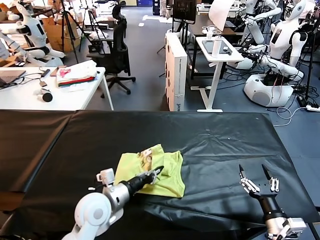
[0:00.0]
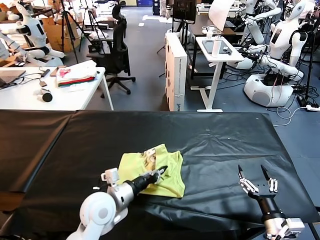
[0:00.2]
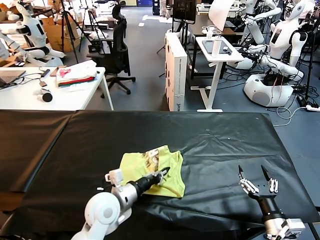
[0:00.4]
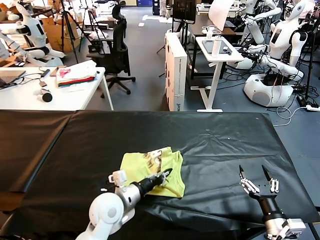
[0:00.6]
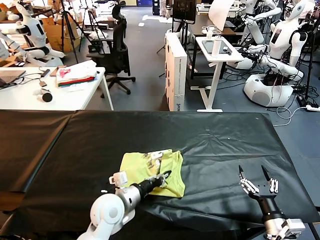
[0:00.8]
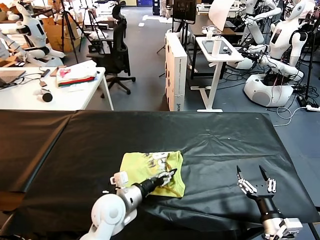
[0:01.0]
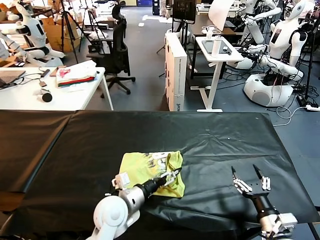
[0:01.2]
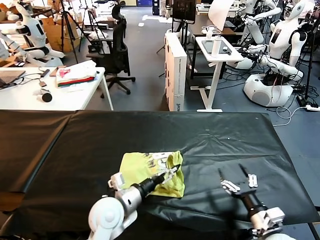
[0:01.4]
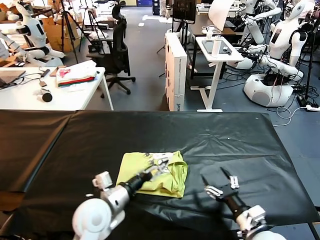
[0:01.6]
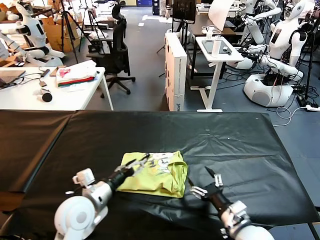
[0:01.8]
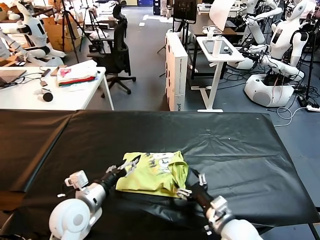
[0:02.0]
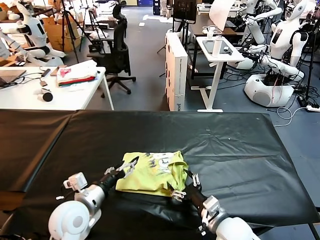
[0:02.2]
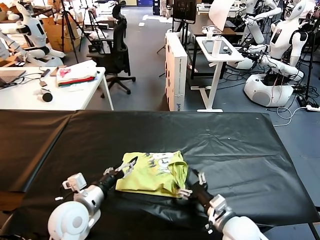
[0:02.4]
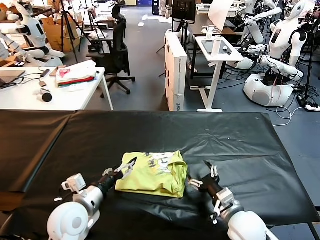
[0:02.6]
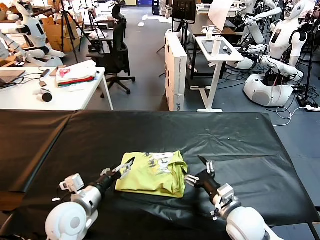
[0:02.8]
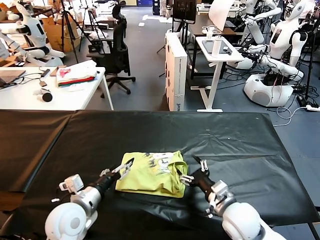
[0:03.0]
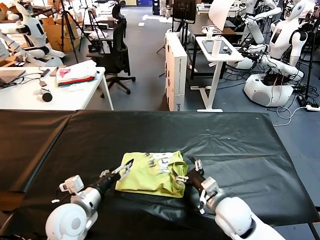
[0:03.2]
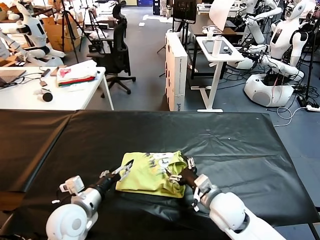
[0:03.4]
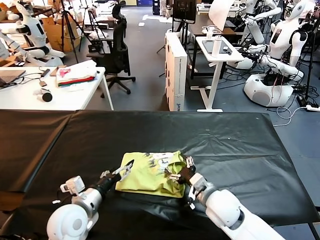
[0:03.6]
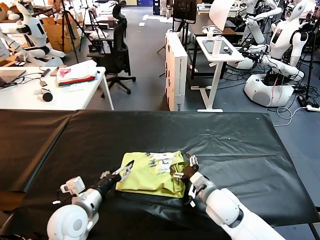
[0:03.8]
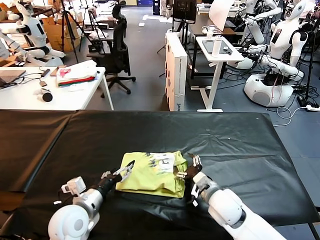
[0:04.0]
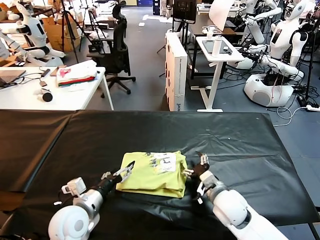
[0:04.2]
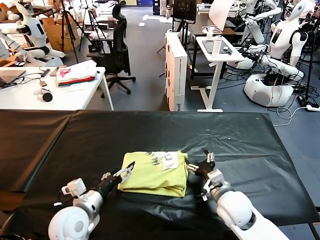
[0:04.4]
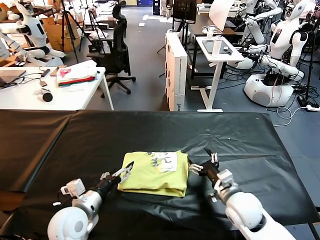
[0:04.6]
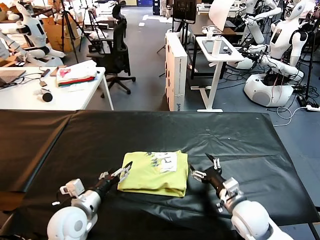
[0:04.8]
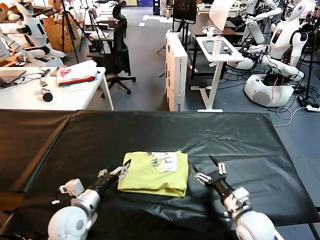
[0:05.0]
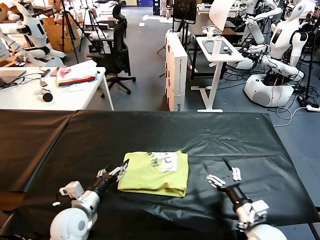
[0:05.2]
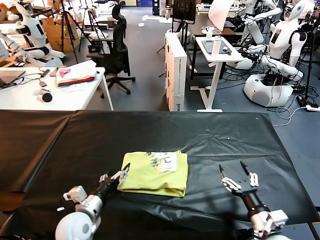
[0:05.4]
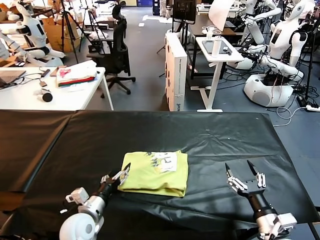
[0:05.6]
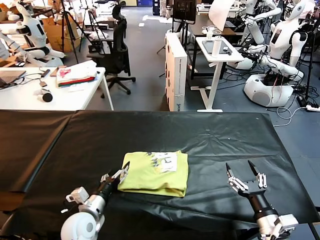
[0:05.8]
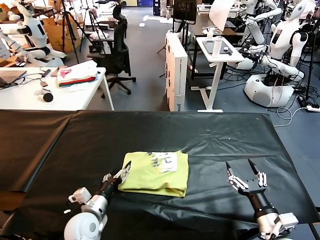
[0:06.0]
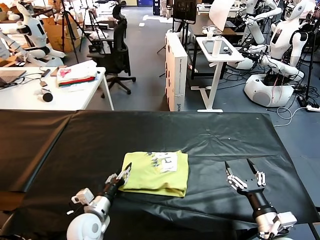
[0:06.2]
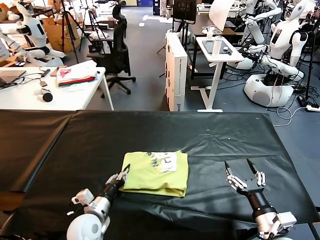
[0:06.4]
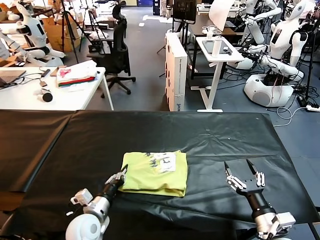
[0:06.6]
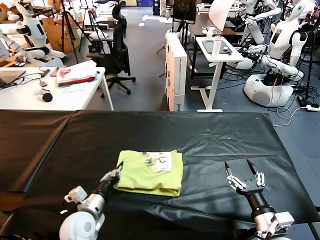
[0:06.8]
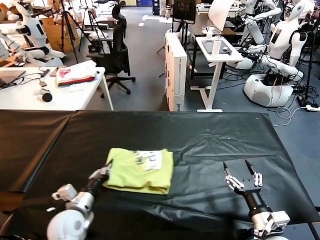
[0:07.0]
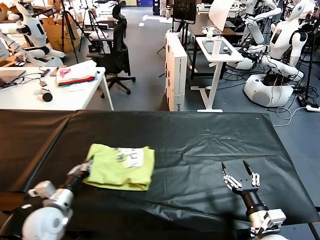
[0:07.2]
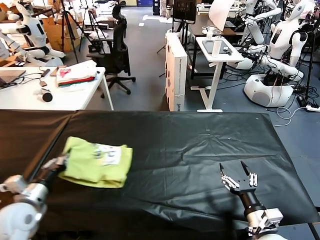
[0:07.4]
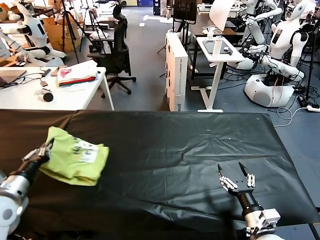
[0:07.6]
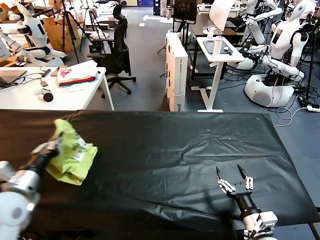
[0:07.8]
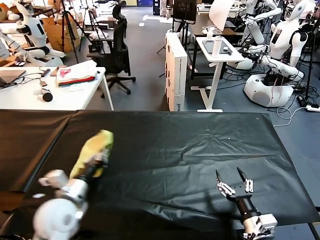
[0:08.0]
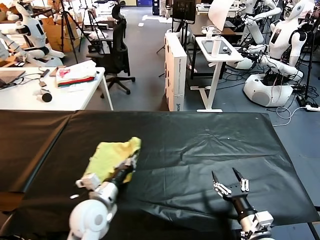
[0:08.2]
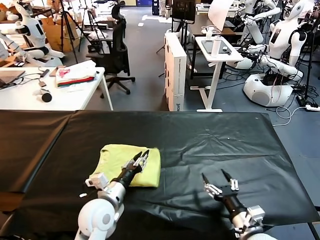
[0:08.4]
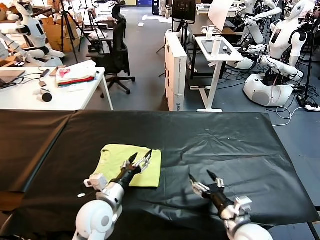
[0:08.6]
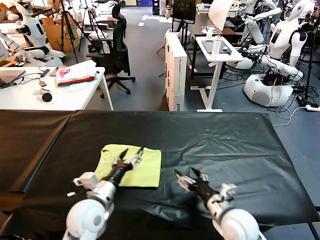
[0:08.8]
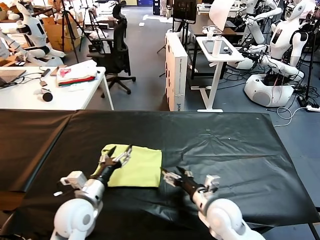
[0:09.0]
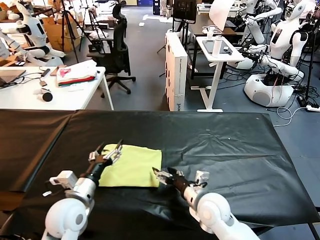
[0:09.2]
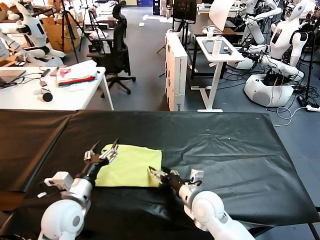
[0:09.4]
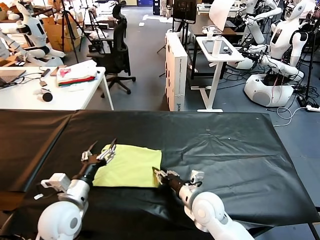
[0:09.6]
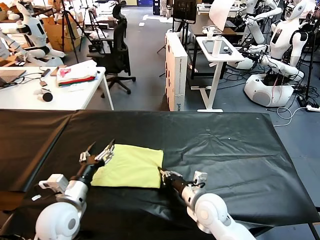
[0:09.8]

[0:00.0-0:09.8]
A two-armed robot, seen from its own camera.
Task of the whole recording: fold and organize the clothes.
Step, 0:01.6 to 0:08.4: Flip the folded clothes over with left gripper.
0:00.0 to 0:01.4: The left gripper opens up.
0:01.4 to 0:02.8: The right gripper moves to the left and forward, about 10 cm; the left gripper shifts approximately 10 cm to the left.
0:02.8 to 0:04.2: The right gripper heads forward, covering approximately 5 cm.
0:04.2 to 0:05.6: The right gripper goes approximately 15 cm backward and to the right. Meanwhile the left gripper heads downward, covering some 10 cm.
0:05.6 to 0:07.0: The left gripper closes its fingers.
0:07.0 to 0:08.4: The left gripper is displaced to the right by roughly 10 cm.
0:08.4 to 0:09.8: The right gripper travels to the left and forward by roughly 15 cm, and closes up. The left gripper goes approximately 10 cm to the left, and opens its fingers.

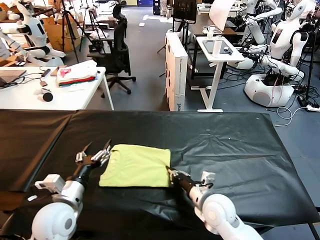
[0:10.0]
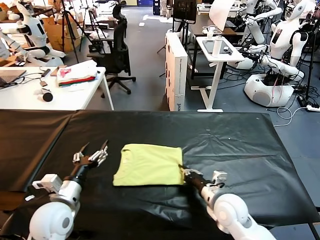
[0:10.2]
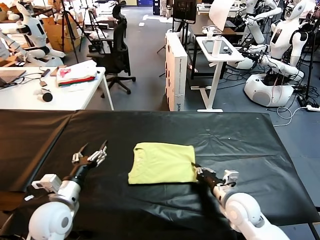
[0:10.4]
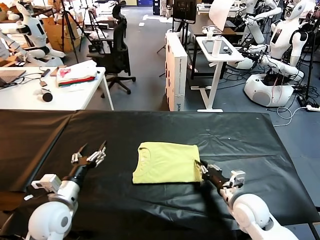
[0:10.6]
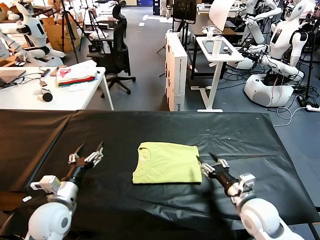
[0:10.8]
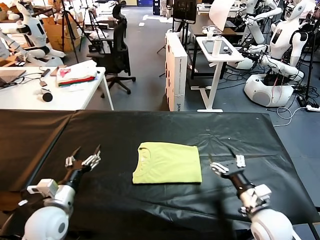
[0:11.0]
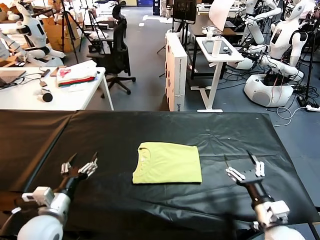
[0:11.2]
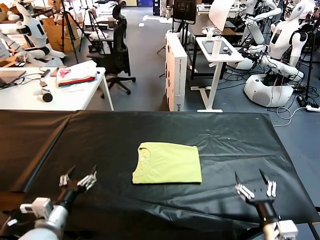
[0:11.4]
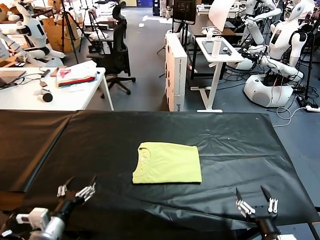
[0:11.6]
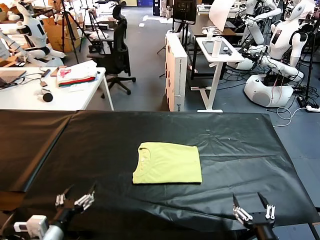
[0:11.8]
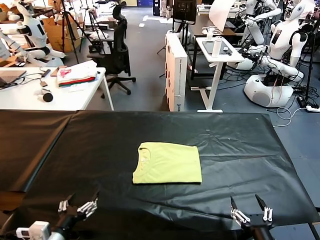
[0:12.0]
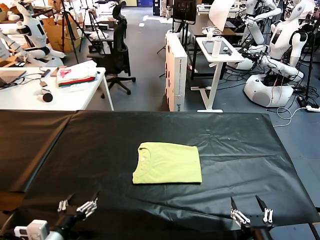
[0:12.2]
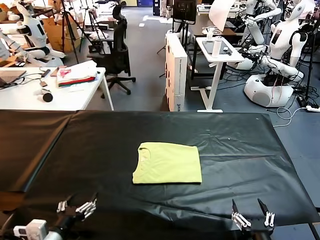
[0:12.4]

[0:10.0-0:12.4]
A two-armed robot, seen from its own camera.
Task of the whole recording: fold and organize the clothes.
0:10.0 to 0:11.2: The right gripper goes some 15 cm to the right and backward, and opens up.
0:11.2 to 0:12.4: The grippers both shift backward by approximately 10 cm.

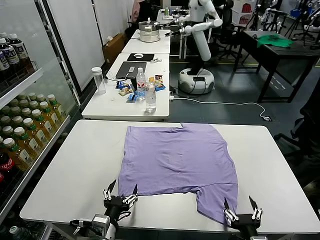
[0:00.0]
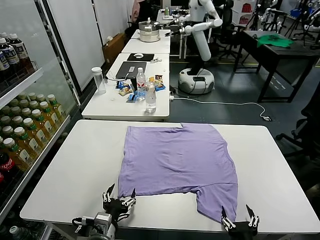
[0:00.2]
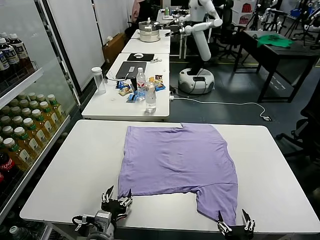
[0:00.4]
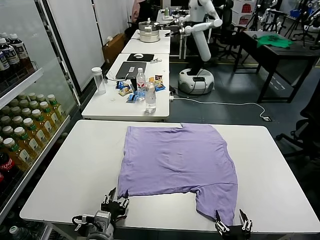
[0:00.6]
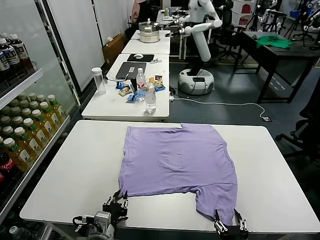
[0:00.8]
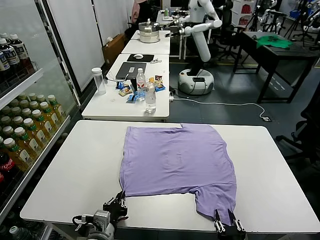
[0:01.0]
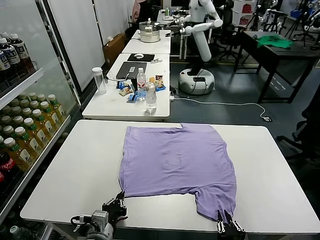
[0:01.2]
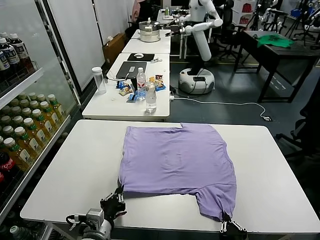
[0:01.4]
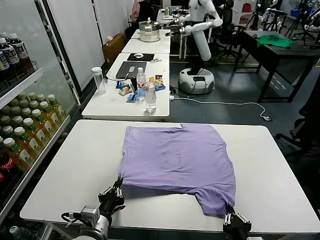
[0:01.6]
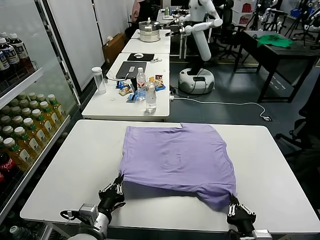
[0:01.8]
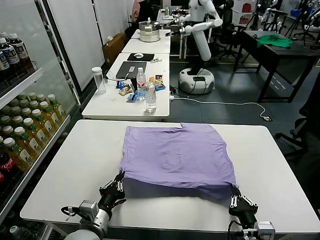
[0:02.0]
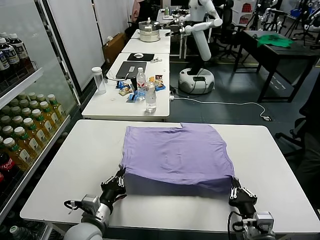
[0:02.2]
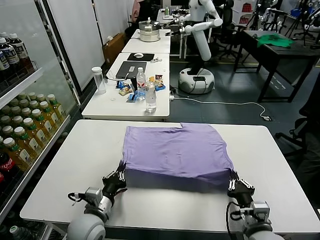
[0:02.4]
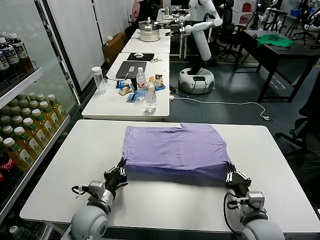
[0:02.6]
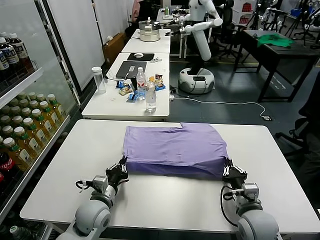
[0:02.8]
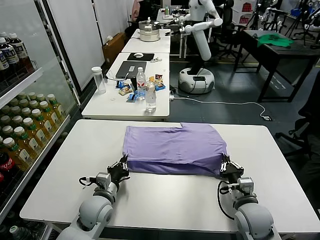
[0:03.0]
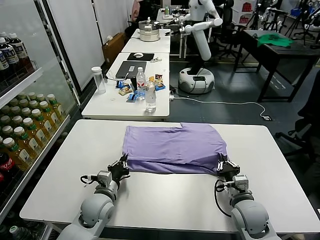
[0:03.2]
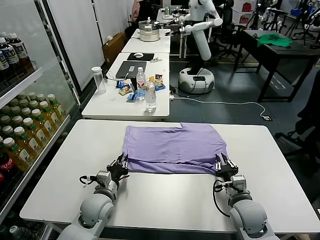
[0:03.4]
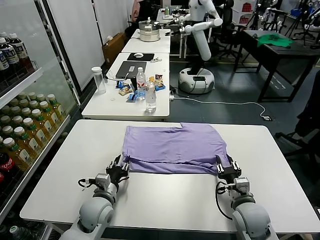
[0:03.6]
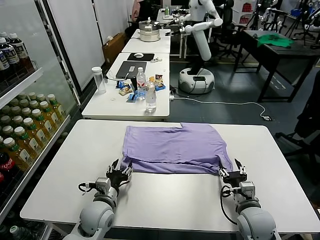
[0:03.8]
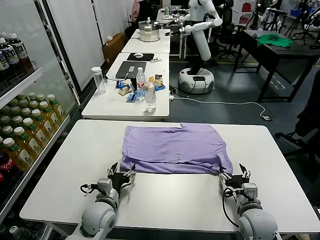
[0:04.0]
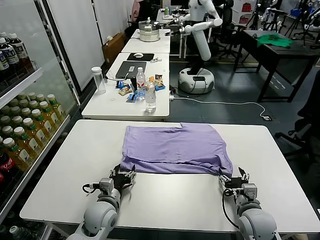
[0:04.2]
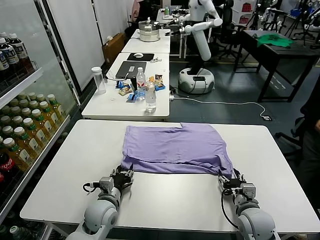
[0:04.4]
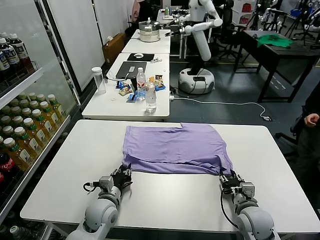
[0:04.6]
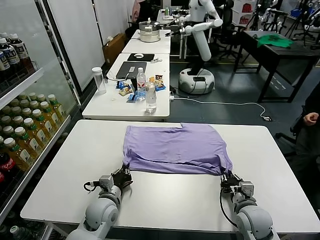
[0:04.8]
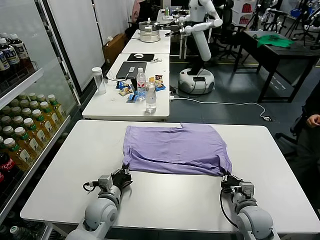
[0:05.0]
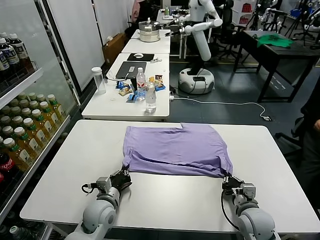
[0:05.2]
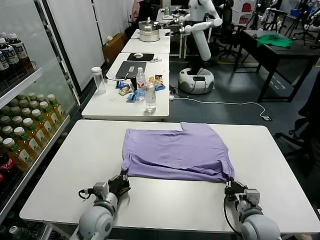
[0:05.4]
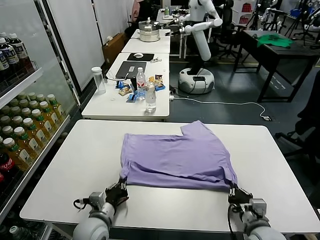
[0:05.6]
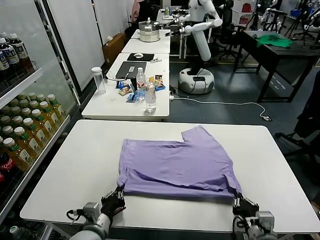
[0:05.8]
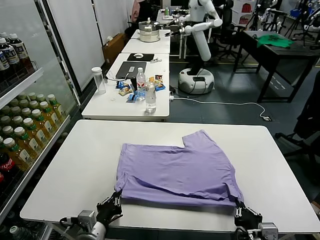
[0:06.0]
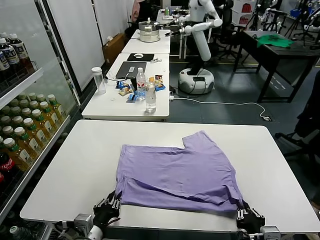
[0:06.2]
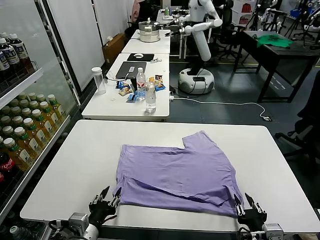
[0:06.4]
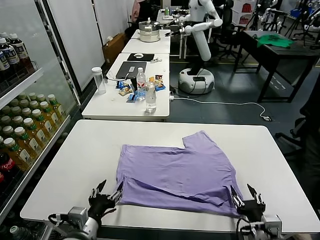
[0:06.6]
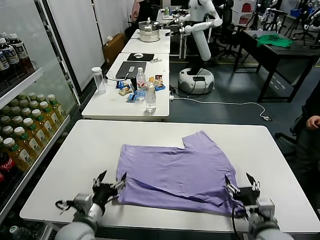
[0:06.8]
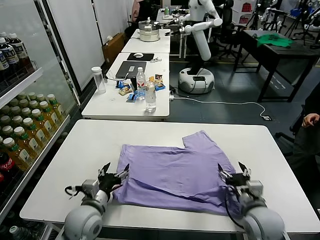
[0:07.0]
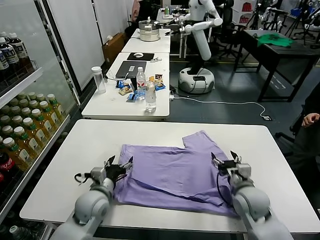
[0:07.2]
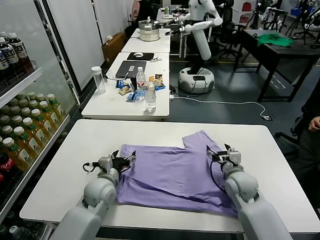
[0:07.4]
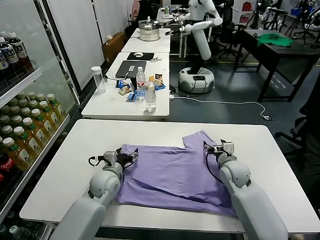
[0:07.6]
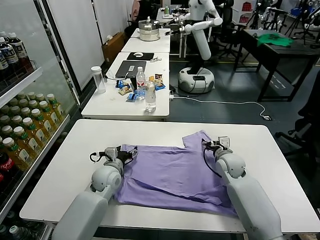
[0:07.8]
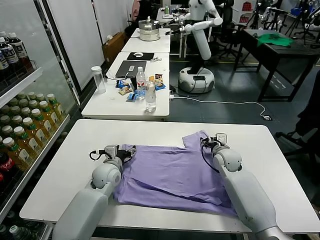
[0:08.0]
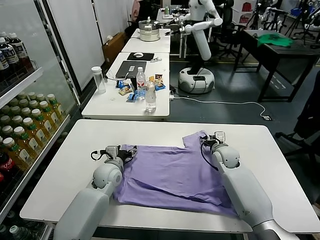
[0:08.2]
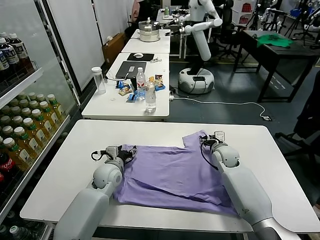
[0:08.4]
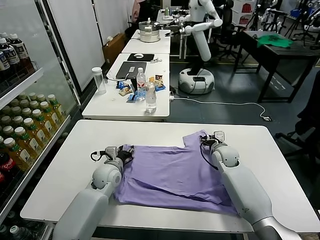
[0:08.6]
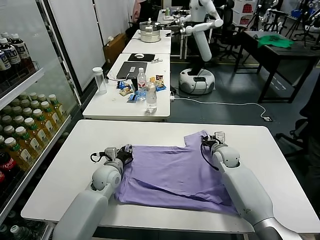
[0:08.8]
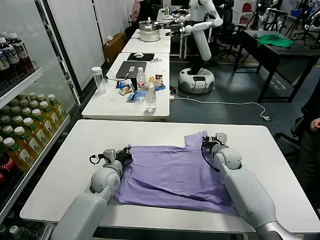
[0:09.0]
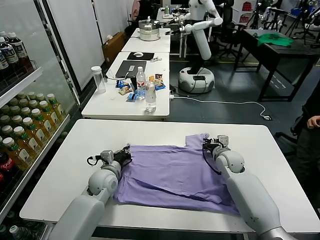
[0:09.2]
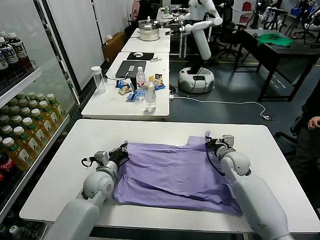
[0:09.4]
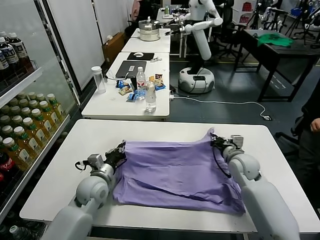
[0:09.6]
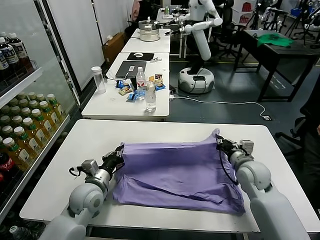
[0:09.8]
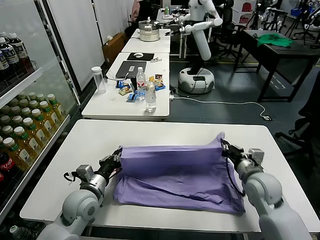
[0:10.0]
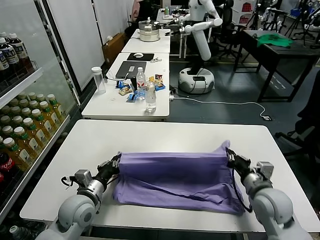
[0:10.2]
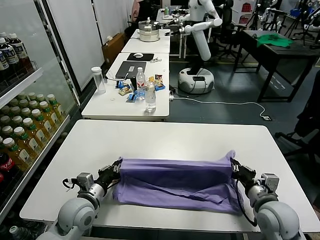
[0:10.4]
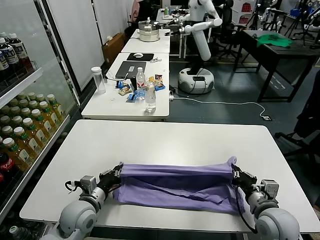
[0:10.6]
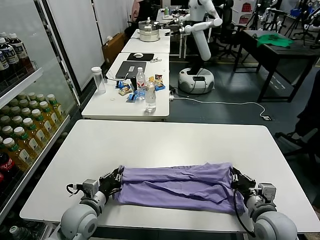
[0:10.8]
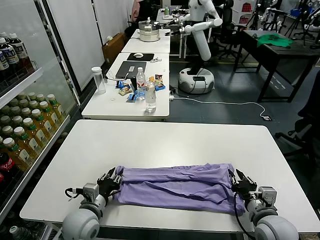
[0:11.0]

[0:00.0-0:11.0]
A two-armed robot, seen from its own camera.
Task of the whole recording: fold and organize the clothes.
Step, 0:00.0 to 0:01.4: use both grippers simultaneously to clamp the lower edge of the clothing fabric.
Step, 0:01.6 to 0:03.4: use both grippers to drag the lower edge of the fabric forward and fold it over the upper edge.
Step, 0:03.6 to 0:06.6: Drag the clothes downward with both gripper.
Step, 0:06.8 to 0:09.0: use both grippers simultaneously to clamp the upper edge of the clothing fabric.
0:01.6 to 0:03.2: Both grippers travel together forward, approximately 15 cm.
0:03.2 to 0:04.8: The left gripper opens, then closes once more. The right gripper opens, then closes once more.
0:04.8 to 0:06.2: The grippers both shift backward by approximately 15 cm.
0:06.2 to 0:07.8: The two grippers go some 30 cm forward. The right gripper opens. Meanwhile the left gripper opens.
0:07.8 to 0:09.4: The left gripper closes its fingers. Meanwhile the right gripper closes its fingers.
0:09.4 to 0:11.0: The left gripper shifts some 15 cm backward, and opens up; the right gripper is displaced backward by some 25 cm, and opens up.
